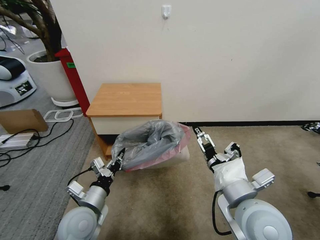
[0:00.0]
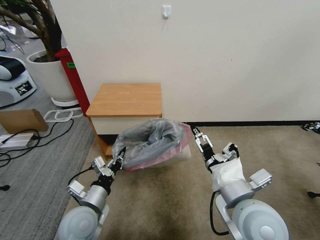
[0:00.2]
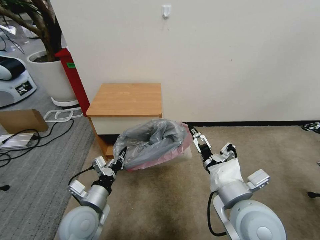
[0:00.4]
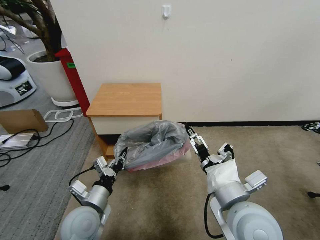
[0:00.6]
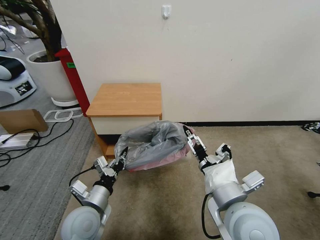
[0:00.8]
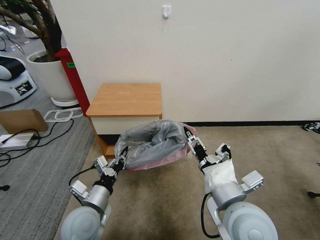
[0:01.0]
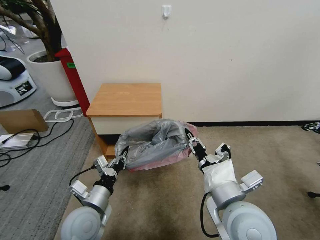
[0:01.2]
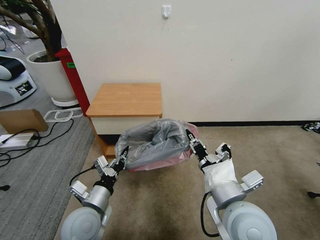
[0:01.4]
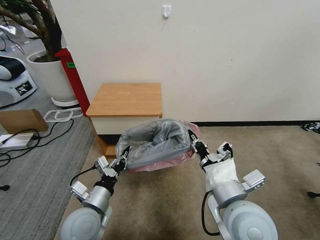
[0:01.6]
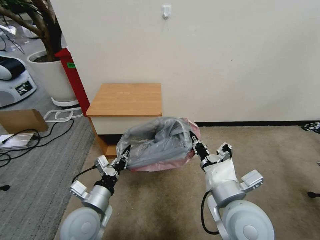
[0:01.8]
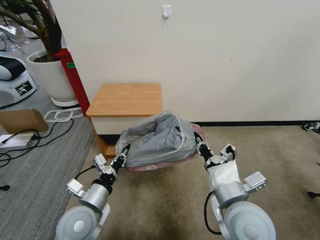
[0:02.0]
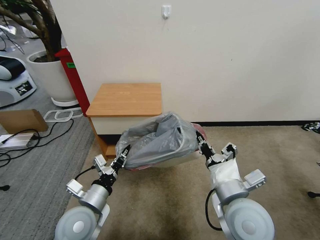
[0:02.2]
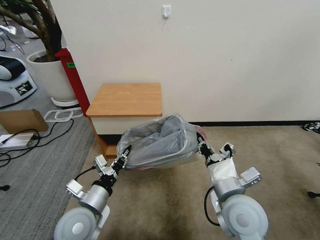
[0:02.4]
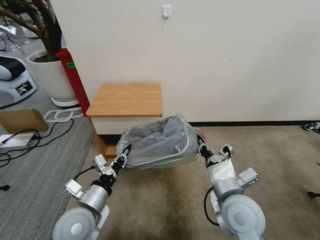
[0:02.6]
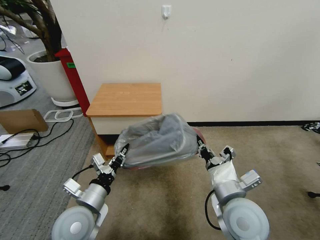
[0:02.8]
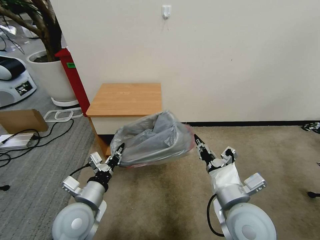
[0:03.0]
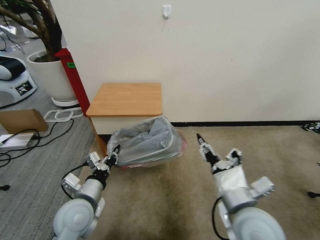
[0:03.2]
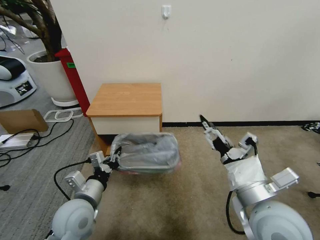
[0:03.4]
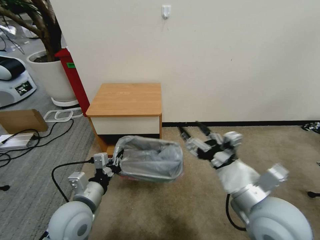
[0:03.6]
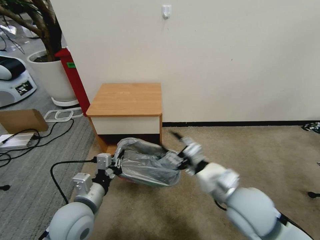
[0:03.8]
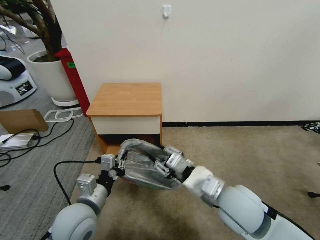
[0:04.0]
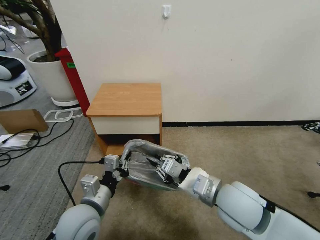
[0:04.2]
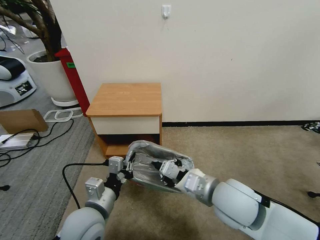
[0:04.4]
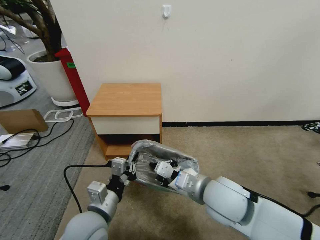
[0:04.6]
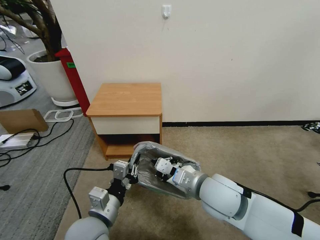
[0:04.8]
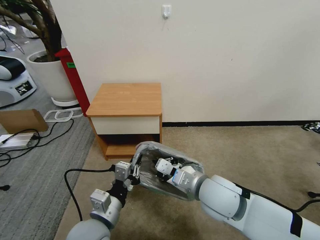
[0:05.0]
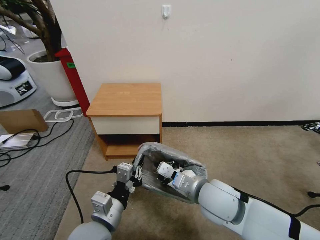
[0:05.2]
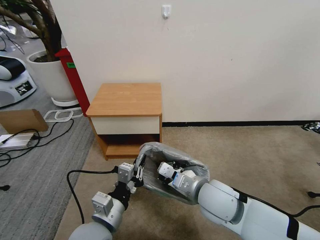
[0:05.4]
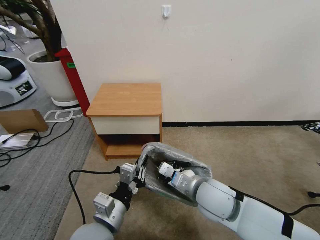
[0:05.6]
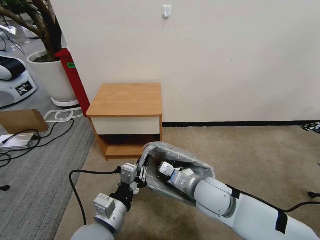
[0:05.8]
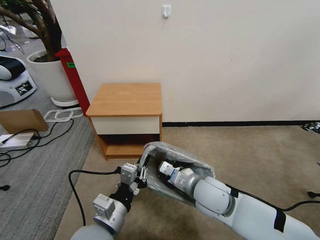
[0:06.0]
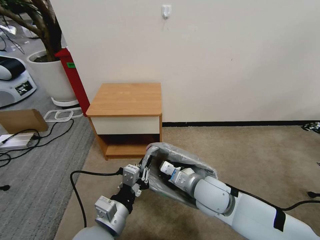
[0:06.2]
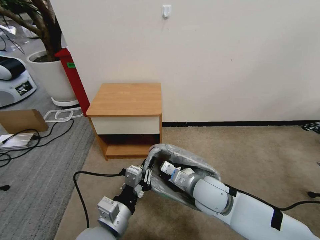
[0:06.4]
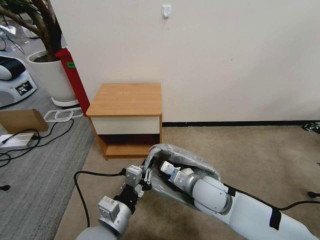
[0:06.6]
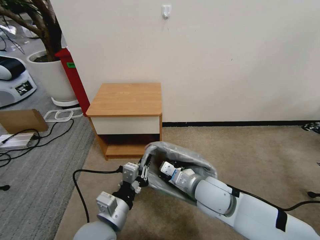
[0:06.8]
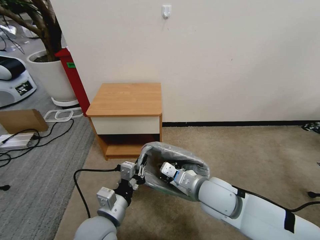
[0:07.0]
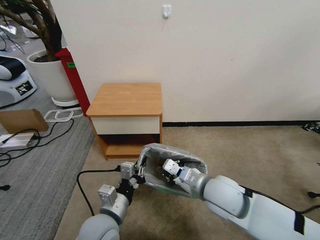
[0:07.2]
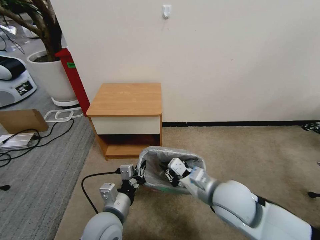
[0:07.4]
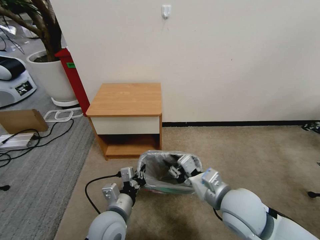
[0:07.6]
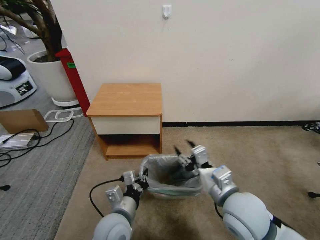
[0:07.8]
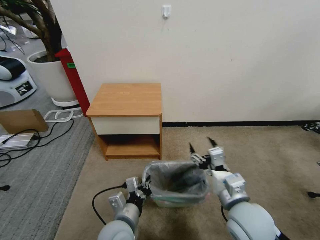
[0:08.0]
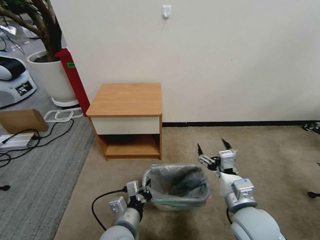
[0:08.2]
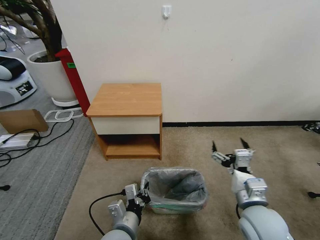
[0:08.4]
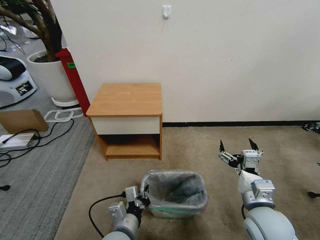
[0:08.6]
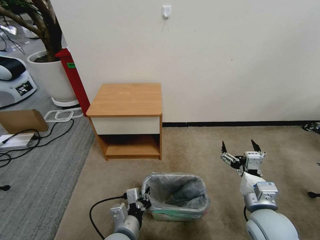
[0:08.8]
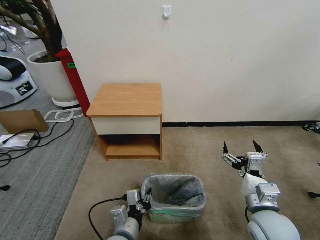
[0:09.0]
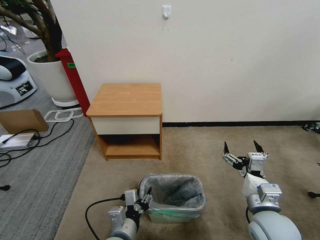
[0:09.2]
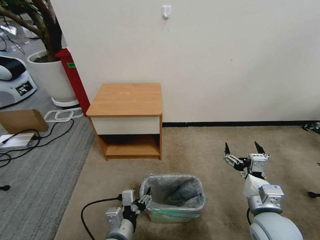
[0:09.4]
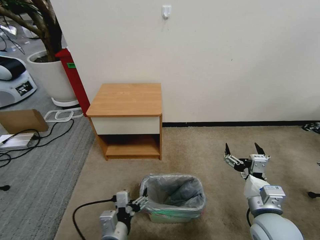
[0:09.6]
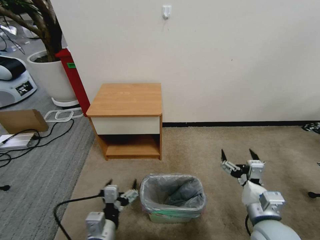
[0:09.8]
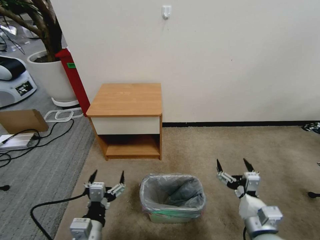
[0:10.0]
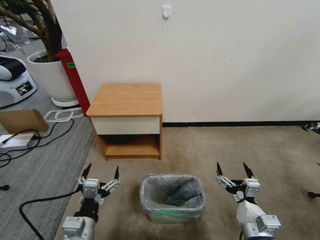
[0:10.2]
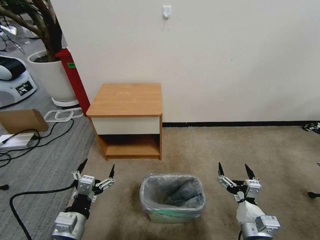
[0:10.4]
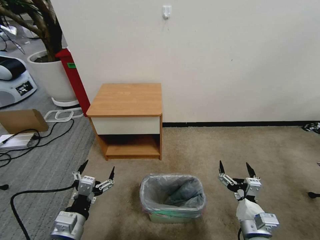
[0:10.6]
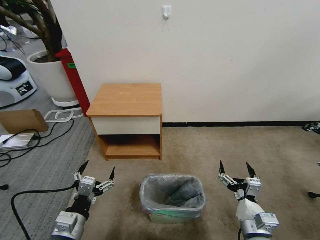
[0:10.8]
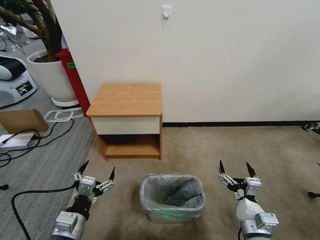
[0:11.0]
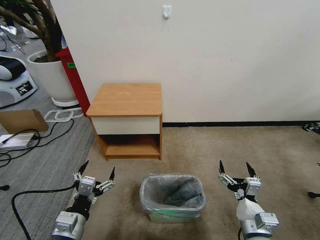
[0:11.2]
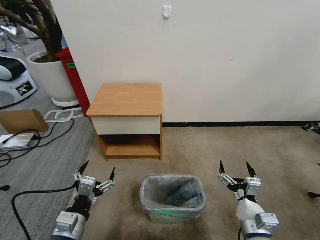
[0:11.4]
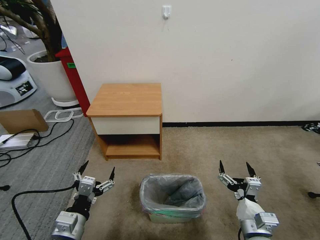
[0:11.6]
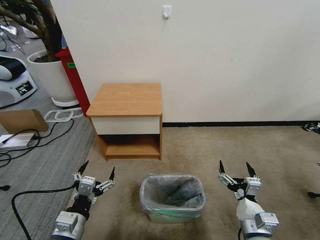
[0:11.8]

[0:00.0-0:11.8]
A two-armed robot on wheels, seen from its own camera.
Task of the whole recording: Pick up the garbage bag from the table and place it over the trash can.
0:00.0 to 0:01.4: The right gripper closes.
0:03.0 to 0:04.4: The right gripper ends up approximately 5 cm from where it was, and opens and closes again.
0:04.4 to 0:06.0: The left gripper changes place by roughly 5 cm, while the right gripper moves downward, roughly 5 cm.
0:06.0 to 0:07.4: The right gripper ends up approximately 5 cm from where it was. The left gripper moves some 5 cm.
0:07.4 to 0:08.8: The right gripper travels to the right and backward by some 10 cm, and opens. The left gripper moves approximately 5 cm.
0:08.8 to 0:10.4: The right gripper is displaced downward and backward by about 10 cm. The left gripper is displaced to the left by about 15 cm, and opens up.
0:10.4 to 0:11.8: Neither gripper changes place.

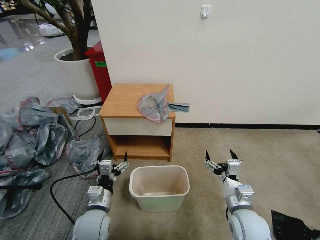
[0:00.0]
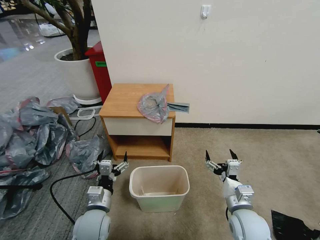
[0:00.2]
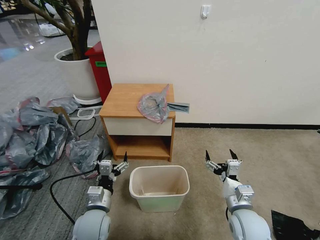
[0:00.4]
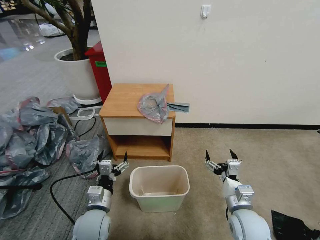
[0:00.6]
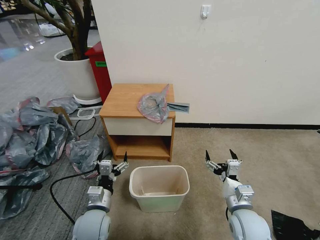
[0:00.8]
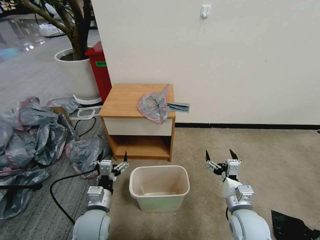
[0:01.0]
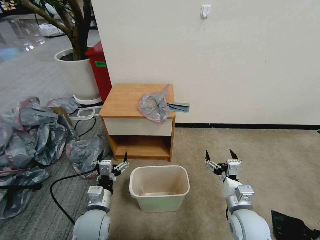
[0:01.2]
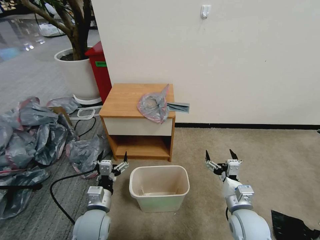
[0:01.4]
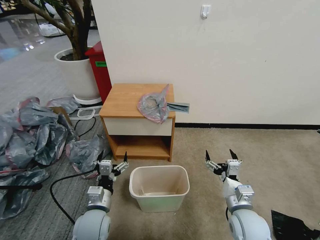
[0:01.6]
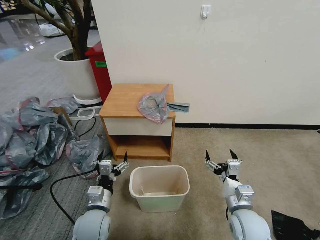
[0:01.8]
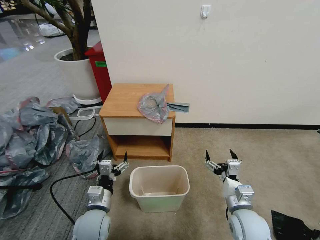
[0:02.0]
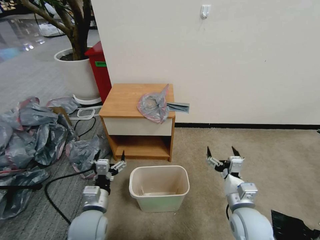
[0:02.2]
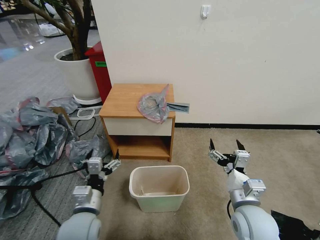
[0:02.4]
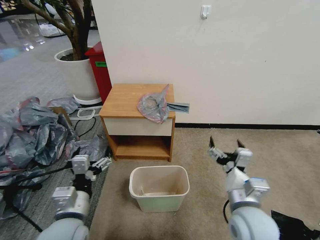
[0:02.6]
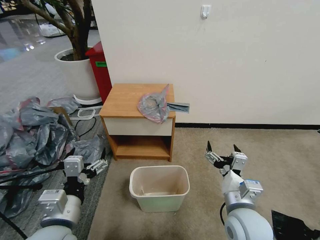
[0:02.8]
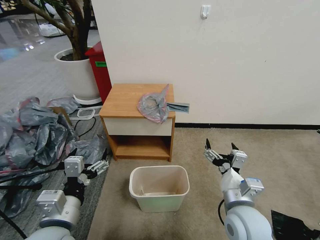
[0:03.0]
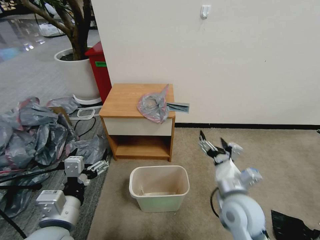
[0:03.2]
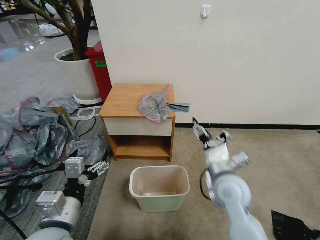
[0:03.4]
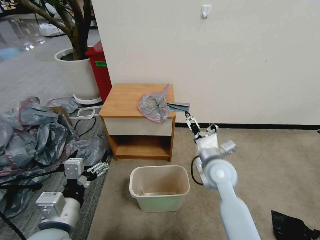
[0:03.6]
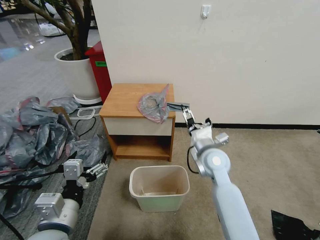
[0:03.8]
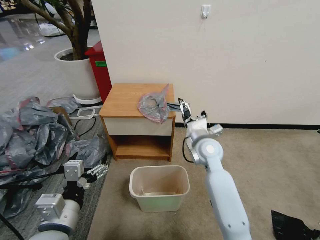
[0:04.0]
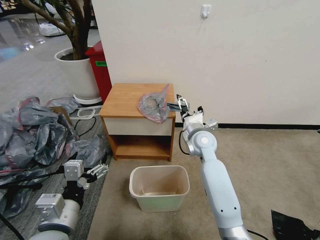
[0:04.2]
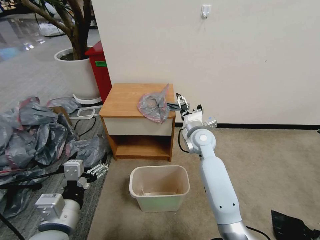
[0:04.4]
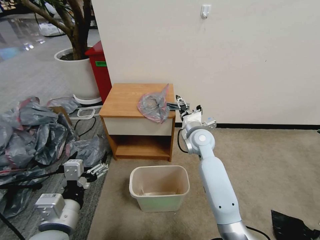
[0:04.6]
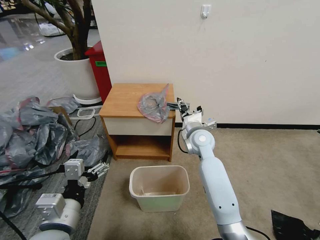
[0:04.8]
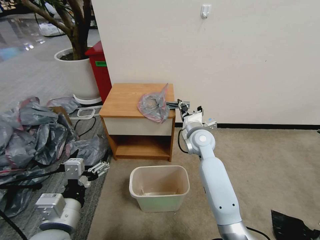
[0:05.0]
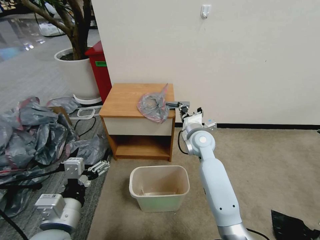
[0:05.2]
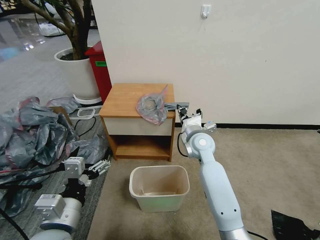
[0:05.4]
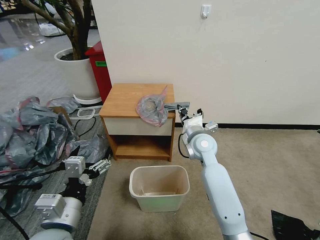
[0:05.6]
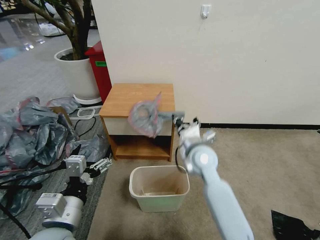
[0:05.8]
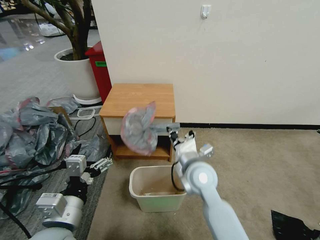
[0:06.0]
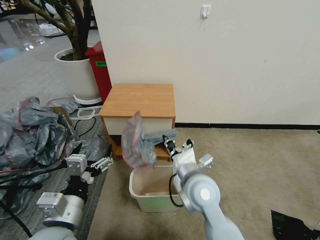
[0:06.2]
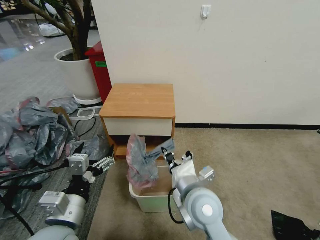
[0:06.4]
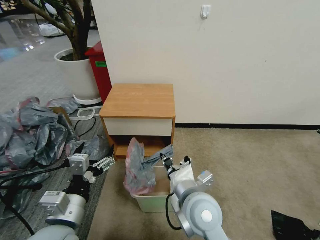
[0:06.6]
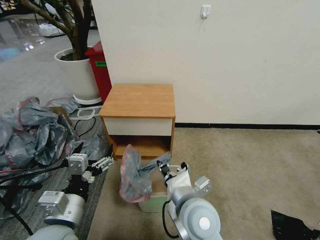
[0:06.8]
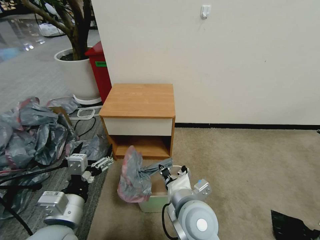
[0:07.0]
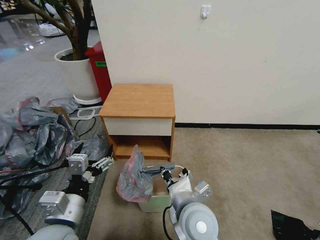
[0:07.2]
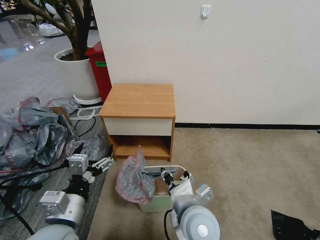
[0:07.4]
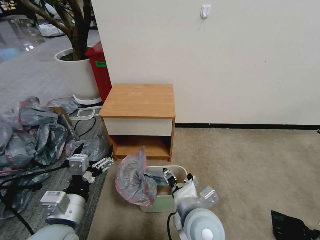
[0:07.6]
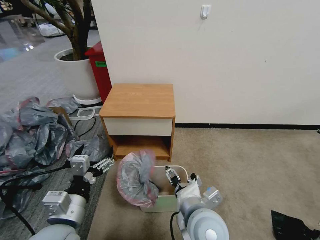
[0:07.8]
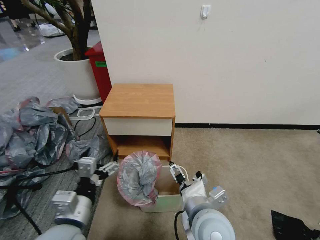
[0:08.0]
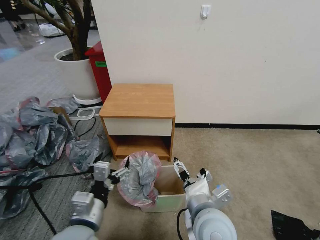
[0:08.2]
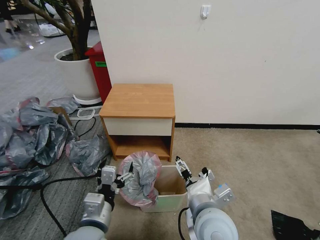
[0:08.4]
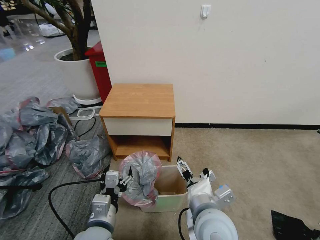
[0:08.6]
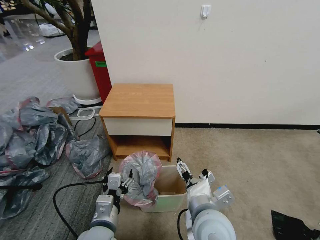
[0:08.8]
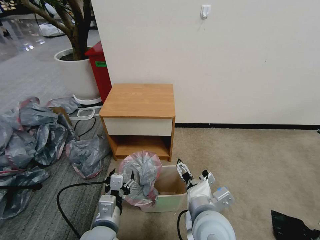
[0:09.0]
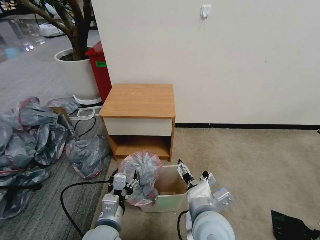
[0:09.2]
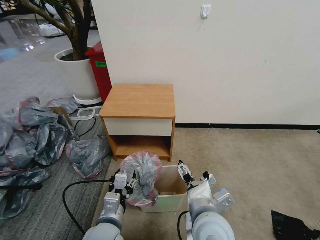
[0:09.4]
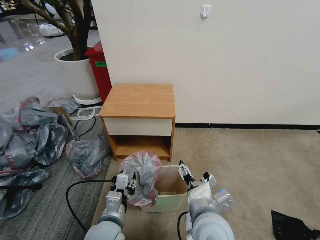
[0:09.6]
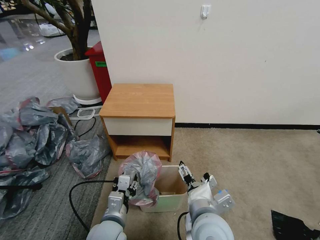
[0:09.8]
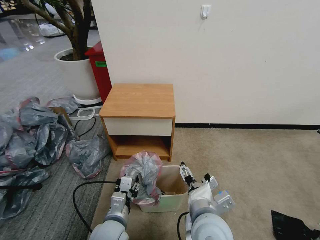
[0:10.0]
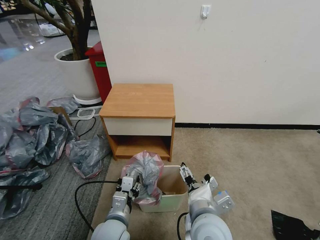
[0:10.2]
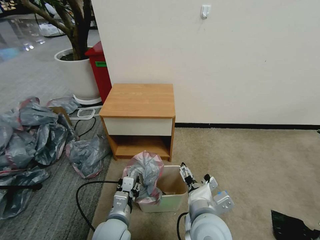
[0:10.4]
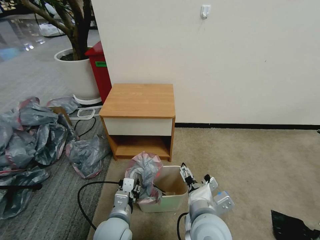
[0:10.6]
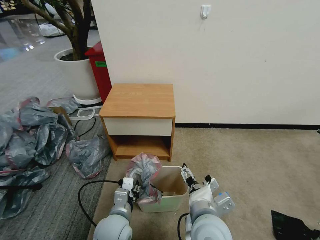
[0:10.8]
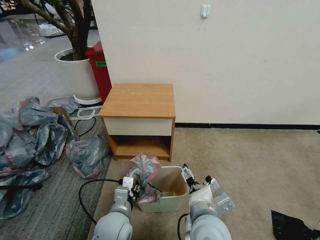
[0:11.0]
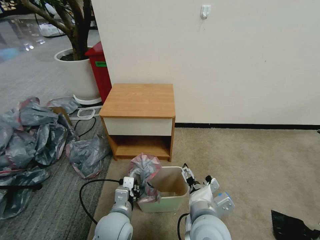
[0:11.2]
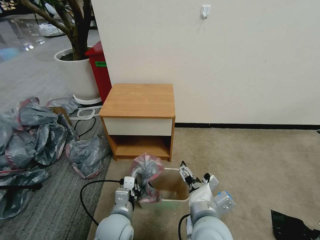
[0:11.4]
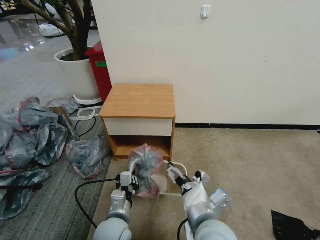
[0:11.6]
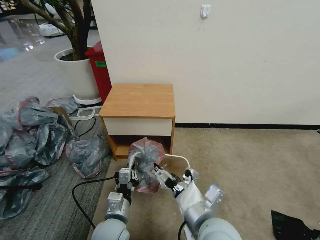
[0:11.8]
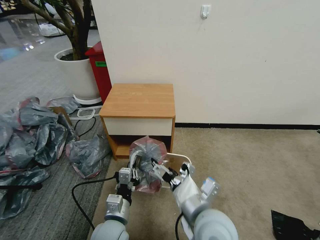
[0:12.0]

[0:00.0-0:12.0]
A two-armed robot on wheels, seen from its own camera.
Task of the whole recording: Pick up the garbage bag from the table and place it over the trash can.
0:01.6 to 0:03.0: The left gripper goes some 15 cm upward and backward; the right gripper shifts roughly 10 cm upward.
0:03.0 to 0:04.4: The right gripper heads forward, covering roughly 25 cm.
0:04.4 to 0:06.0: The right gripper travels backward by some 15 cm, and closes up.
0:06.0 to 0:07.6: The right gripper shifts roughly 10 cm backward, and opens its fingers.
0:07.6 to 0:09.0: The left gripper is displaced downward and to the right by approximately 10 cm; the right gripper opens up.
0:09.0 to 0:10.4: The left gripper ends up approximately 5 cm from where it was.
0:10.4 to 0:12.0: The left gripper closes its fingers.
